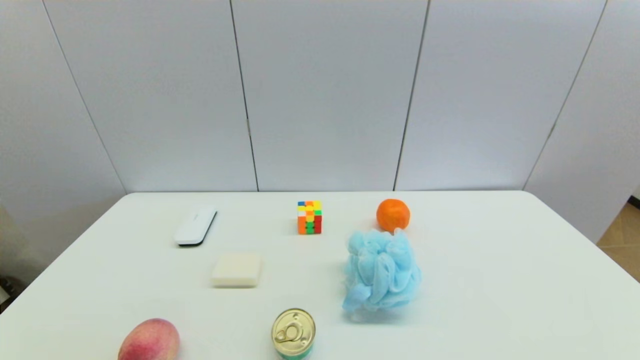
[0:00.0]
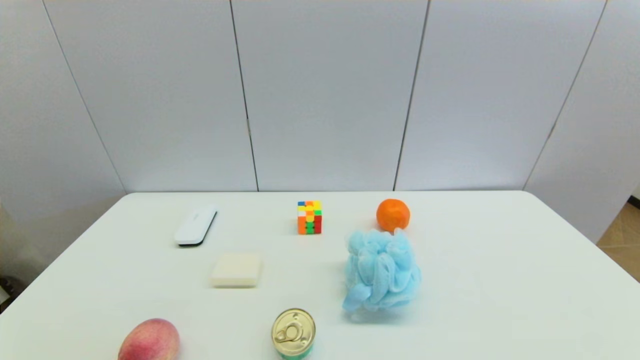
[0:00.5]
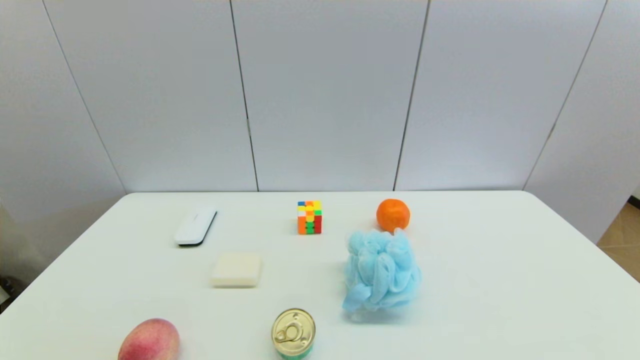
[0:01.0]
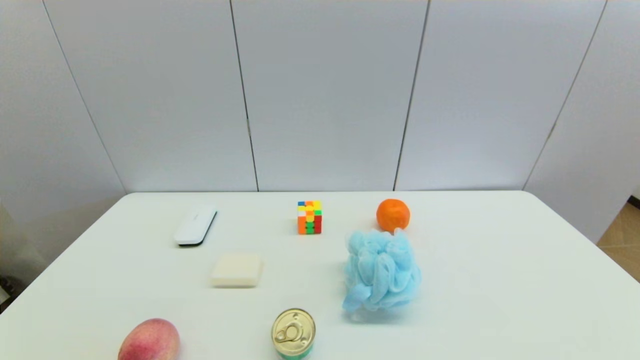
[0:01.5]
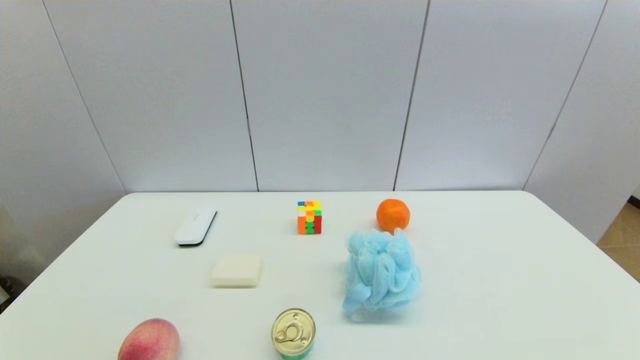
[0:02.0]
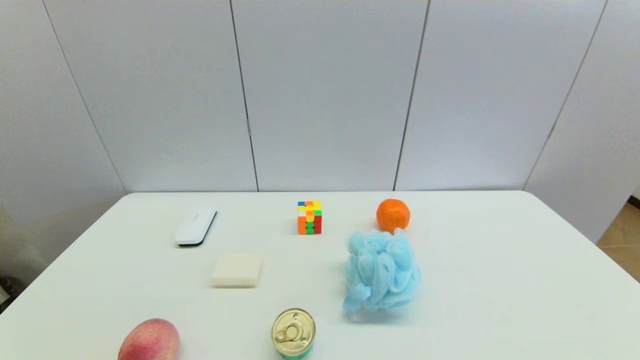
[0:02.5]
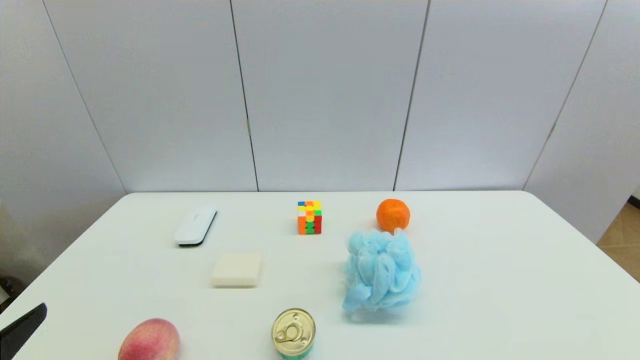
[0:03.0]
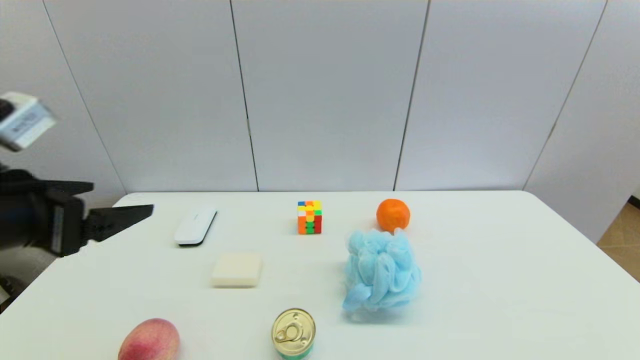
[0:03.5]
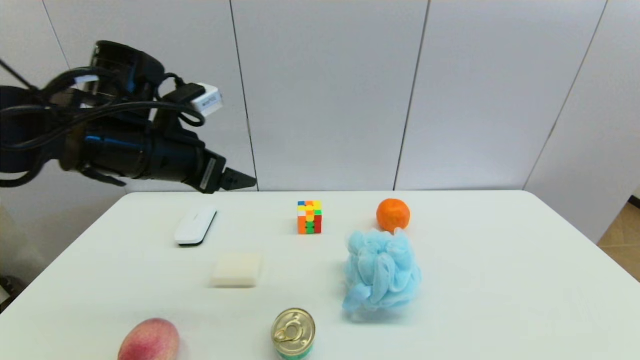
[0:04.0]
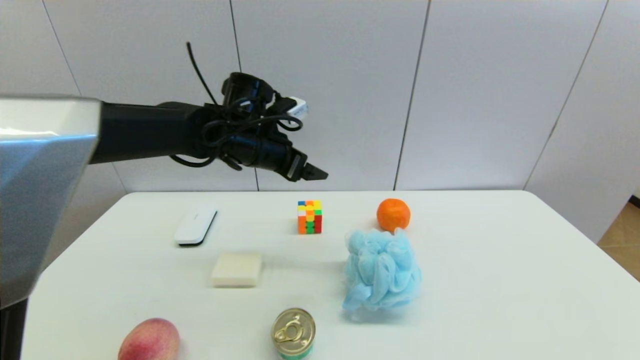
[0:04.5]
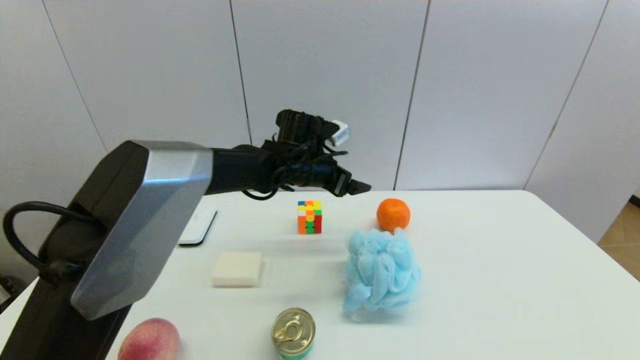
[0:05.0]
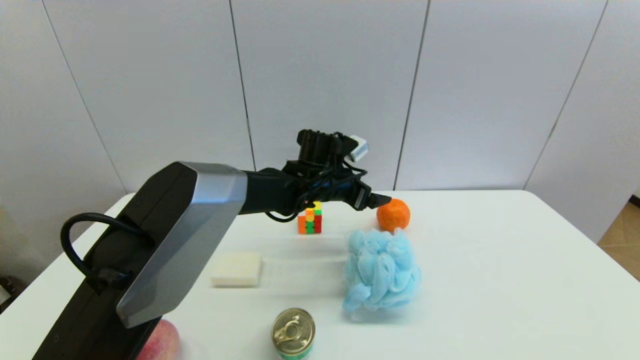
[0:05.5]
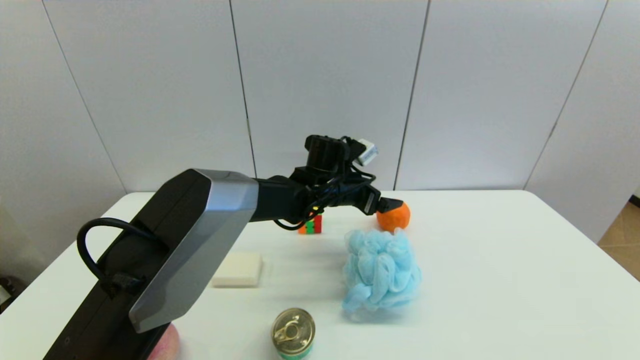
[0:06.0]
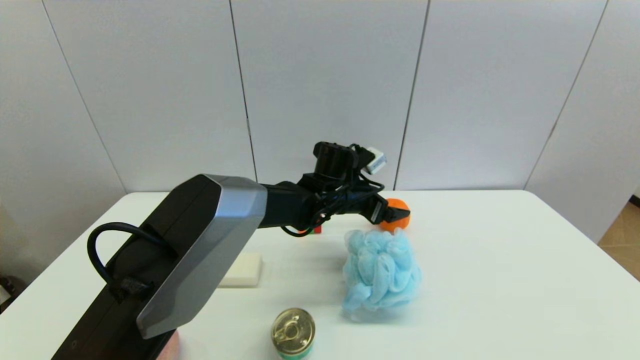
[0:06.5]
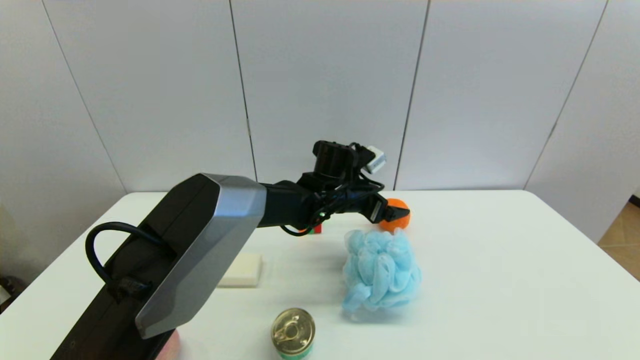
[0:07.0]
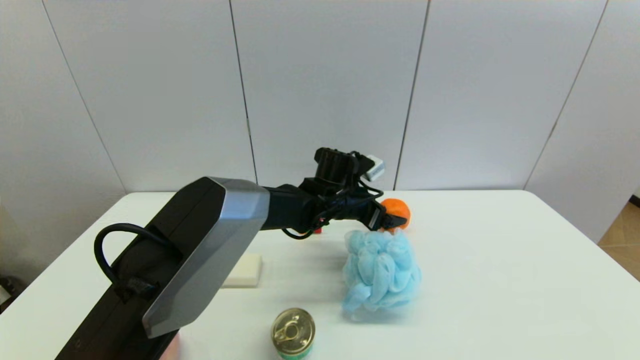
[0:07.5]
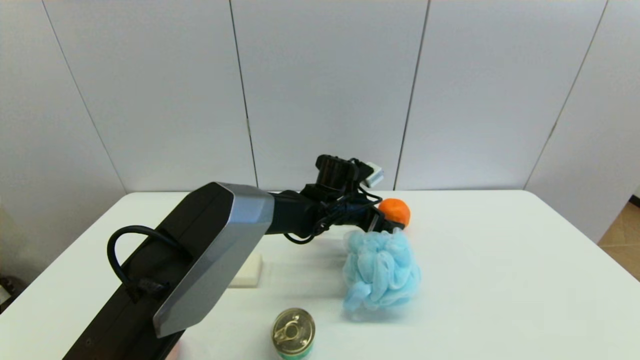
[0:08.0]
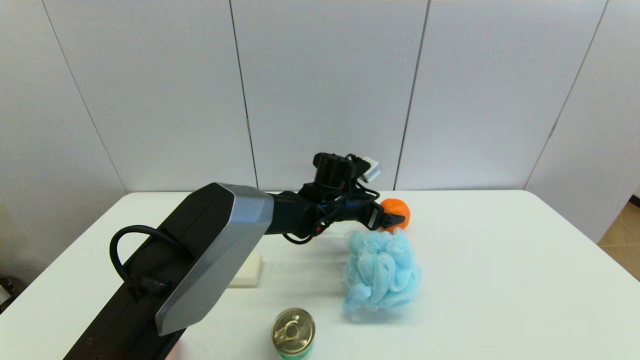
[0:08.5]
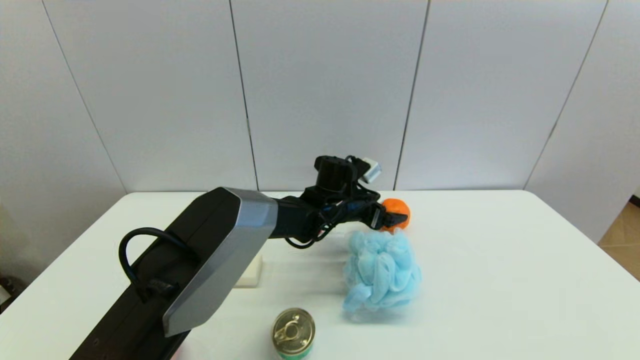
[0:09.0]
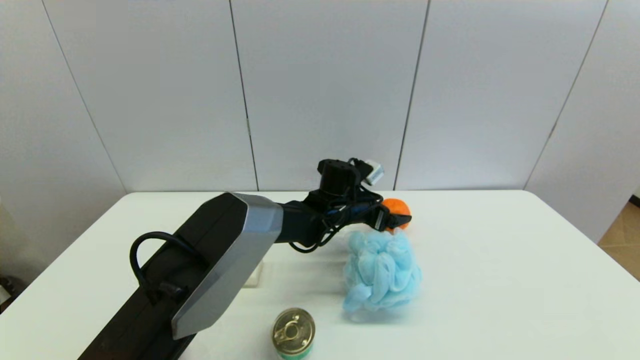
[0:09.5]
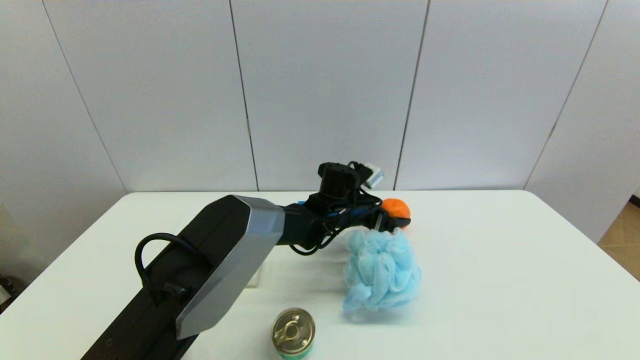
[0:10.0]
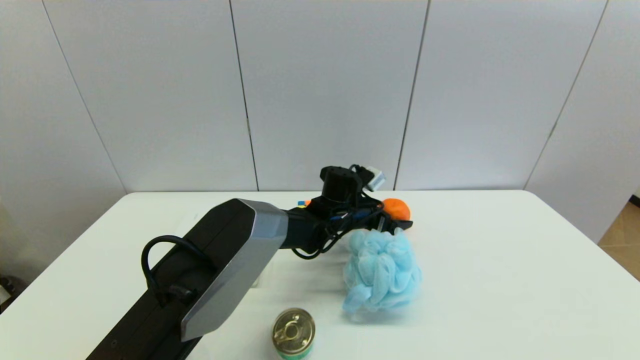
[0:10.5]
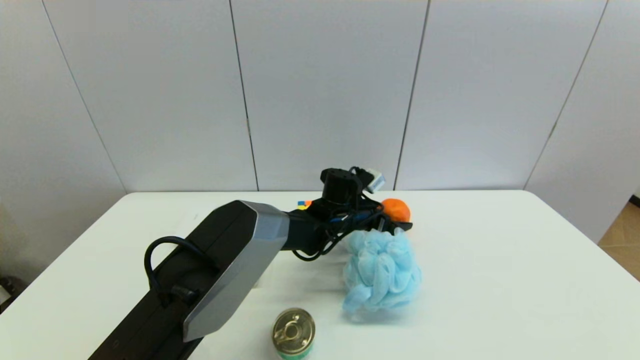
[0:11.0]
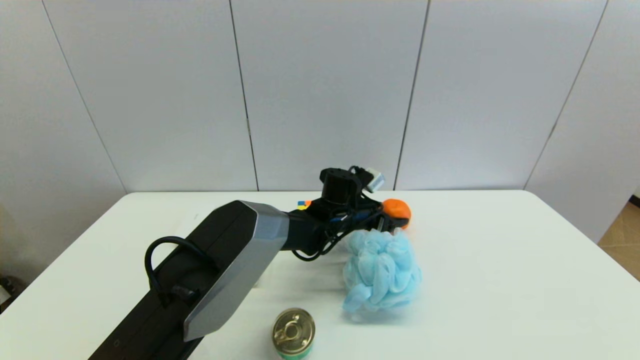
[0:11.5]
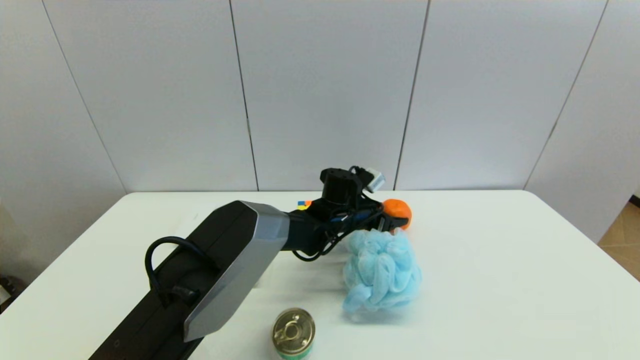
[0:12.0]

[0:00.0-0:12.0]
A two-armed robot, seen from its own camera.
Step, 3.0 to 12.0 s: Grasp the orange with left gripper.
0.0 to 2.0 s: Both grippers stay put.
2.0 to 4.0 s: The left gripper heads forward and upward, covering approximately 35 cm.
4.0 to 6.0 s: The left gripper is displaced to the right, downward and forward by roughly 30 cm.
6.0 to 10.0 s: The grippers move only a little.
10.0 to 12.0 s: The left gripper closes up.

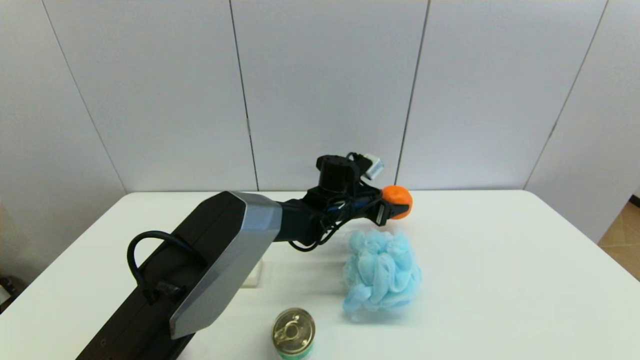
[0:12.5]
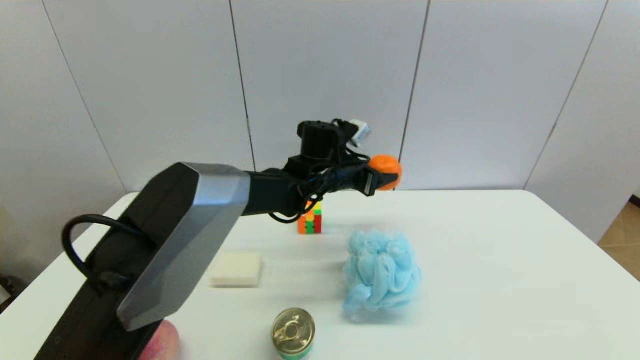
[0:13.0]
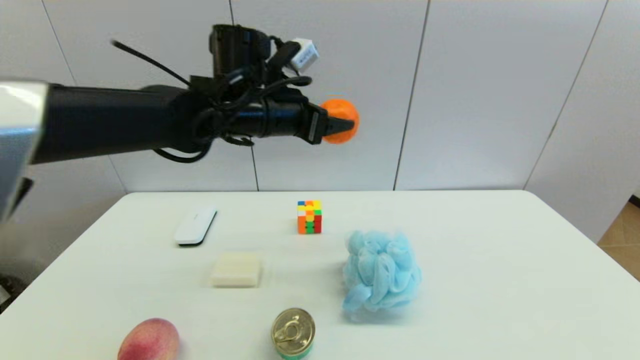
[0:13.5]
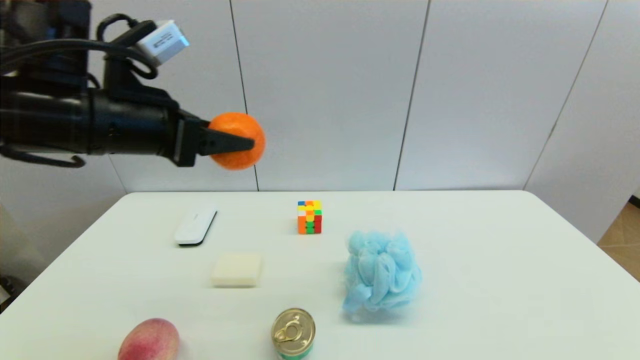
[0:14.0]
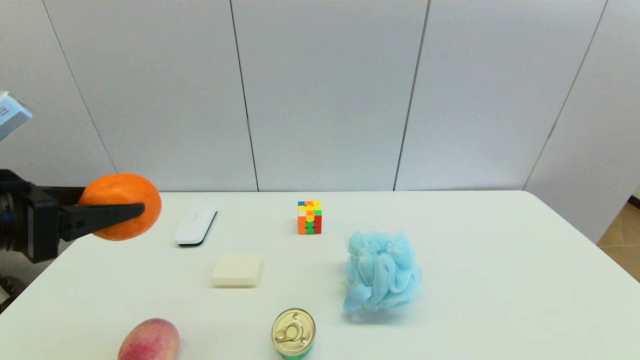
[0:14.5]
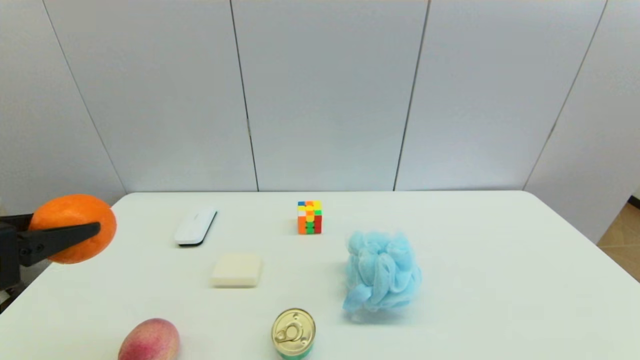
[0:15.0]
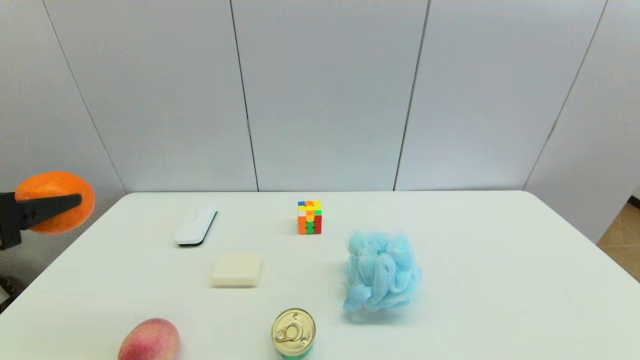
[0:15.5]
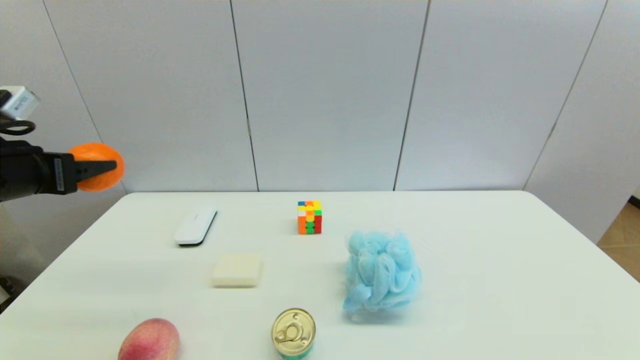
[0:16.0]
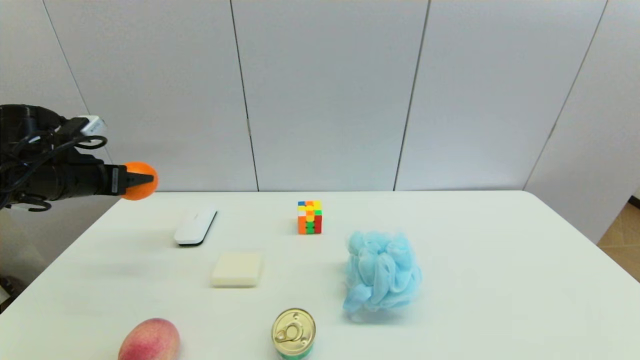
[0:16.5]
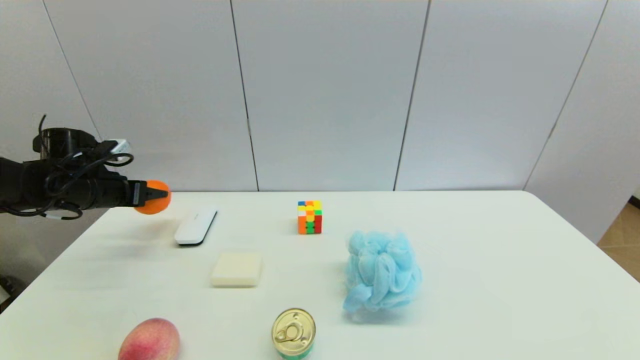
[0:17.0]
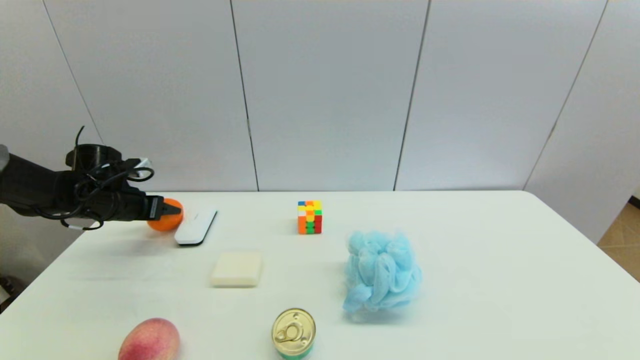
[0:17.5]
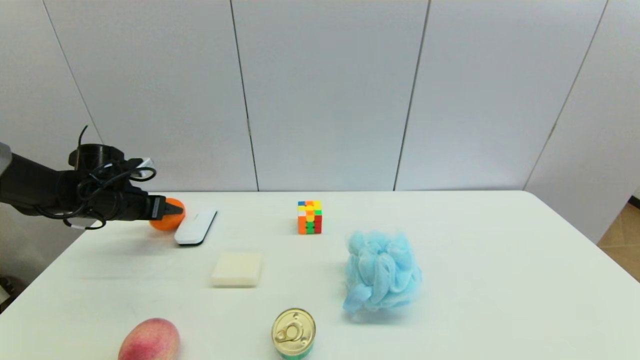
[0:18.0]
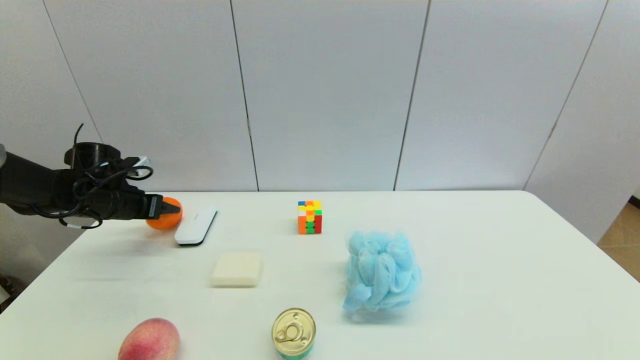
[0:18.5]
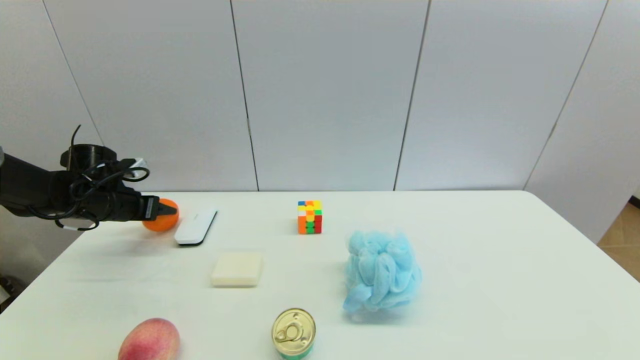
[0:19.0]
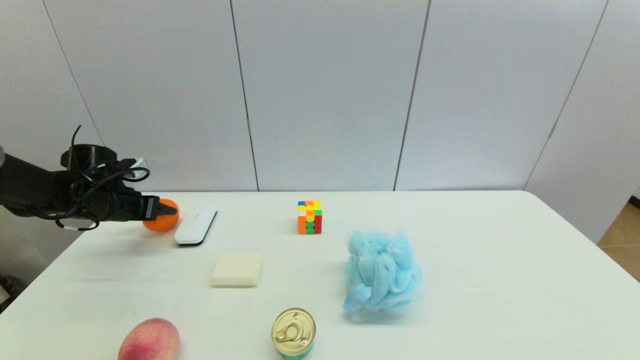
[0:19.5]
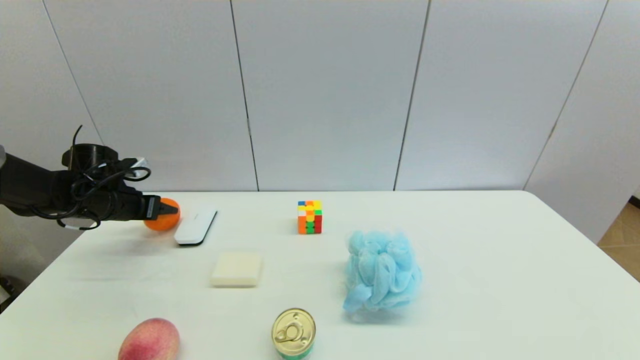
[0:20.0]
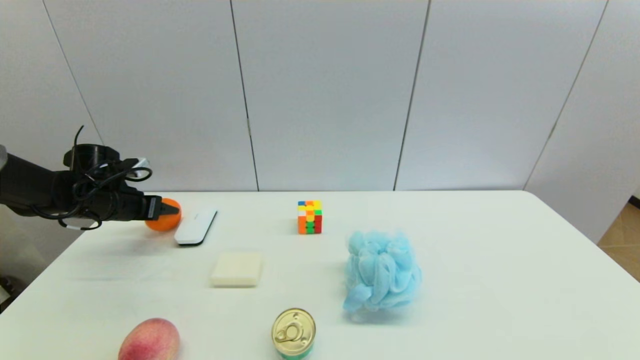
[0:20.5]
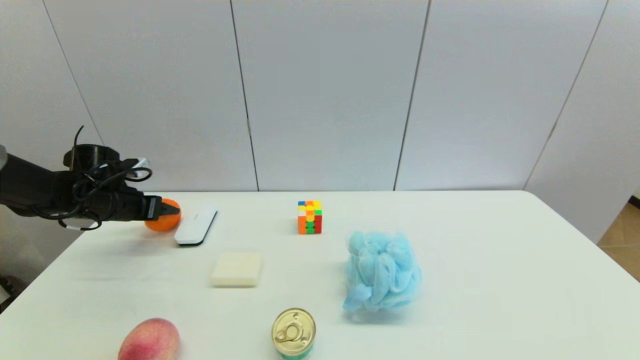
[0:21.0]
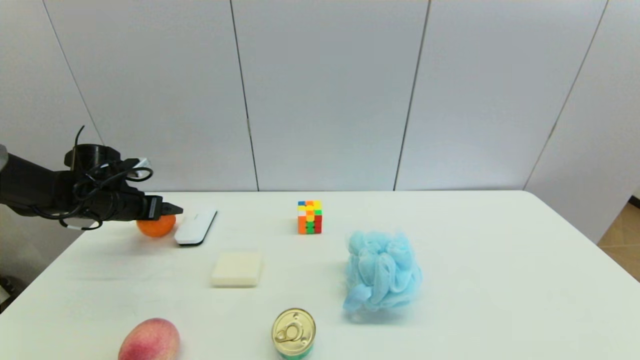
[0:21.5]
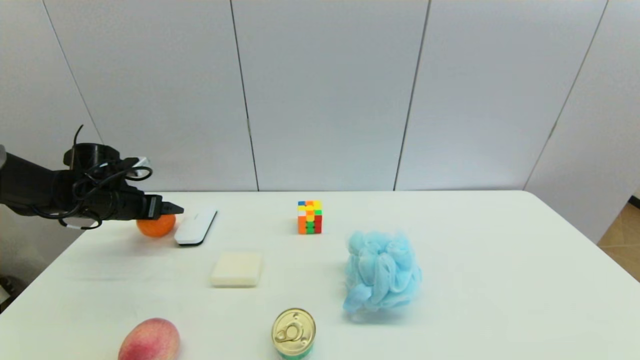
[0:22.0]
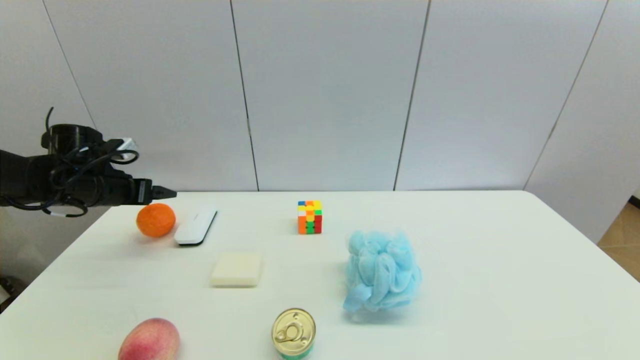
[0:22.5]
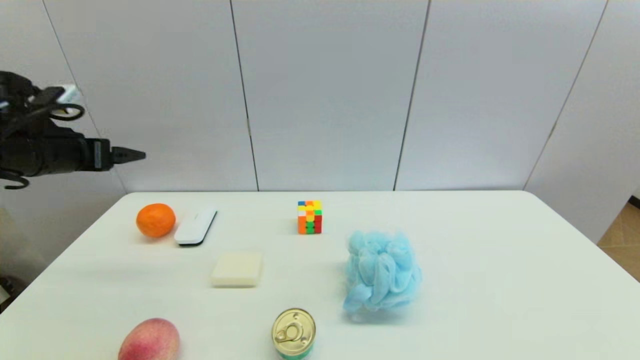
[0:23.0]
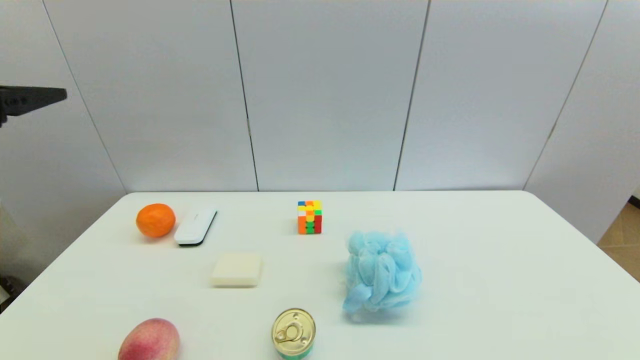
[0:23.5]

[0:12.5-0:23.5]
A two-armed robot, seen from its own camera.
Step, 12.5 to 21.5 s: Place the orange on the table with left gripper.
12.5 to 14.5 s: The left gripper goes approximately 50 cm to the left, backward and upward.
14.5 to 16.0 s: The left gripper moves forward and to the left, roughly 10 cm.
16.0 to 18.0 s: The left gripper is displaced forward and downward by approximately 20 cm.
18.0 to 20.0 s: Both grippers stay about where they are.
20.0 to 21.5 s: The left gripper opens its fingers.
21.5 to 23.5 s: The left gripper shifts roughly 30 cm upward and backward.
